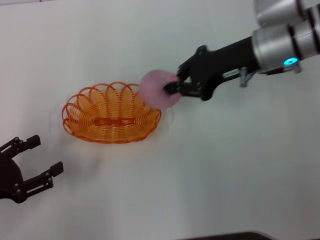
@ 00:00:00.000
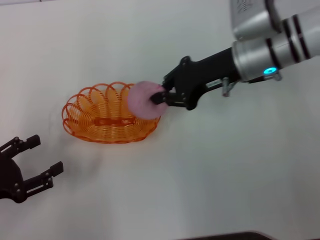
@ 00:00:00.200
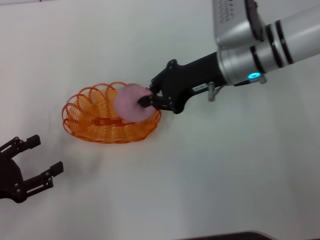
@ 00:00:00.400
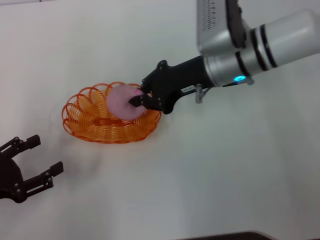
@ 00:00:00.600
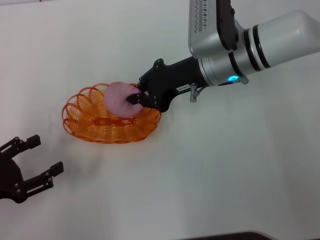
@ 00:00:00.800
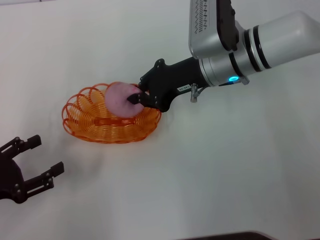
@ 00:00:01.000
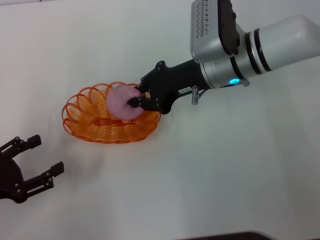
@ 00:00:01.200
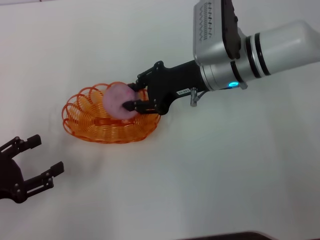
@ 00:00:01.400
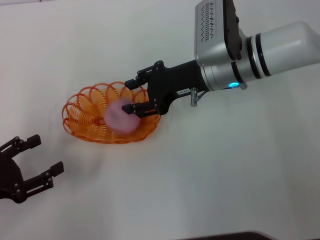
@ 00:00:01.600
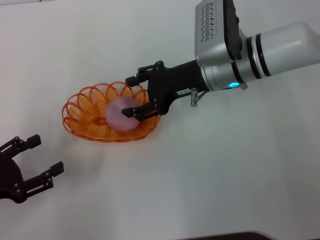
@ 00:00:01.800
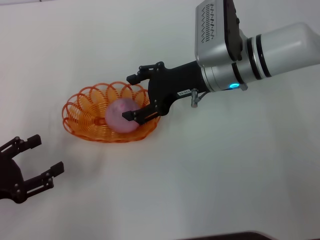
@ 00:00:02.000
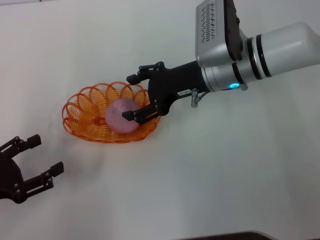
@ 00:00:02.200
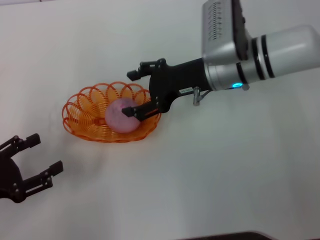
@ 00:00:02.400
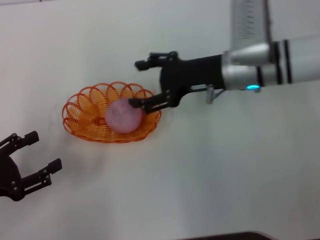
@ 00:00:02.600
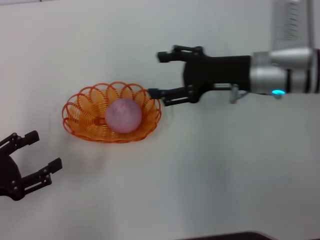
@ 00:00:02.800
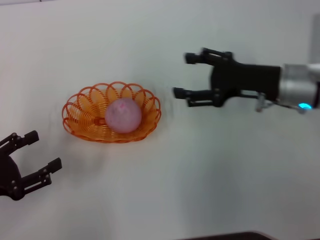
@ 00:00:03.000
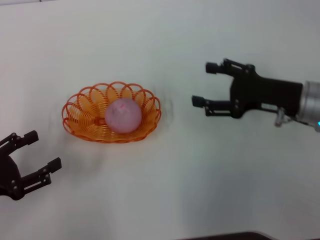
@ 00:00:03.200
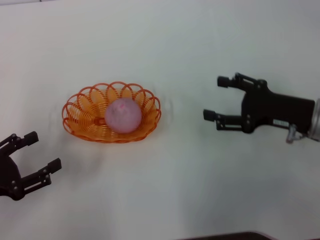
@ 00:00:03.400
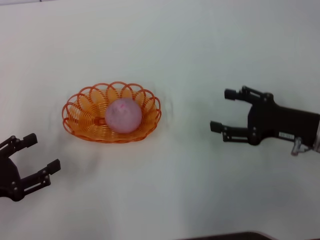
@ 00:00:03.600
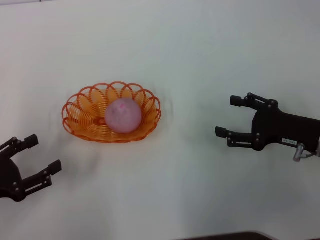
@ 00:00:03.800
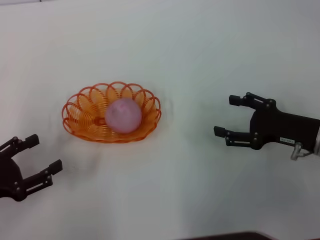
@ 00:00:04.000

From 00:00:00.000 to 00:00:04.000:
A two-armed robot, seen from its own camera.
Step, from 00:00:00.000 to 00:00:02.800: Place the peach into the basket with the right gripper.
From 00:00:00.000 to 00:00:01.400: The right gripper travels to the left by some 5 cm.
From 00:00:01.400 to 00:00:02.600: The right gripper opens up.
From 00:00:02.600 to 00:00:04.000: The right gripper travels to the right, backward and downward by some 20 cm.
